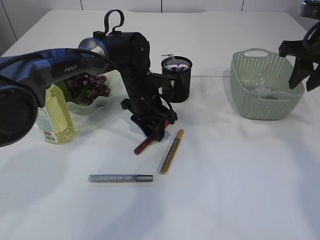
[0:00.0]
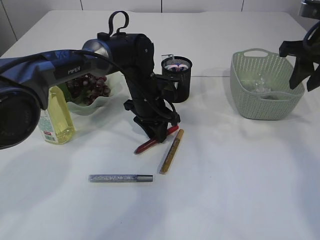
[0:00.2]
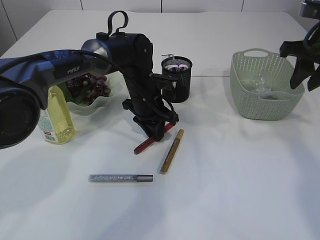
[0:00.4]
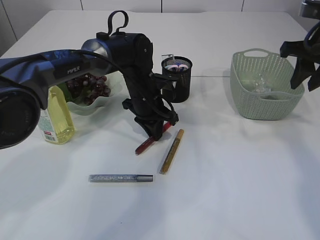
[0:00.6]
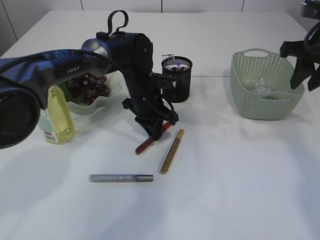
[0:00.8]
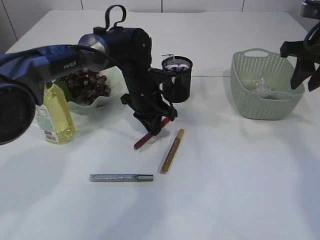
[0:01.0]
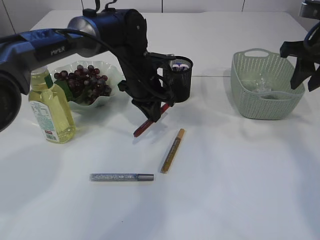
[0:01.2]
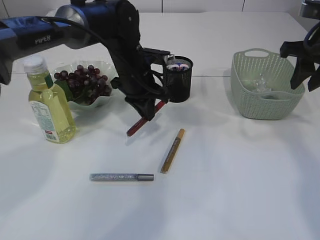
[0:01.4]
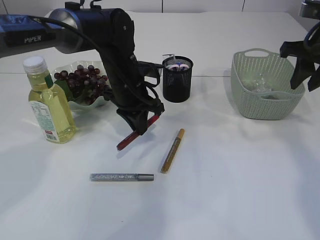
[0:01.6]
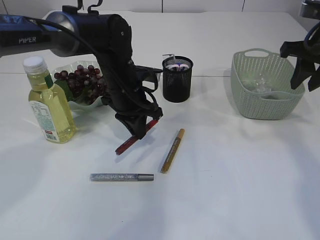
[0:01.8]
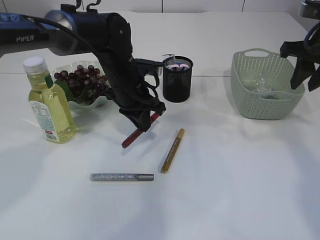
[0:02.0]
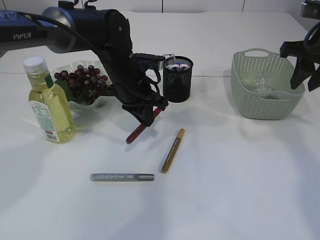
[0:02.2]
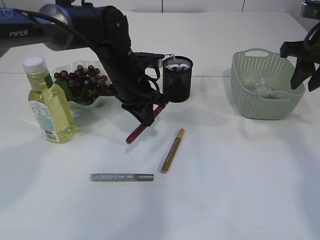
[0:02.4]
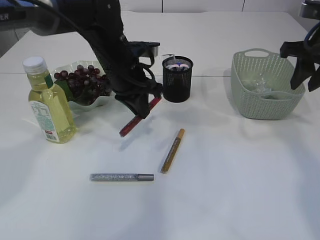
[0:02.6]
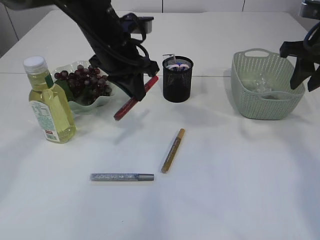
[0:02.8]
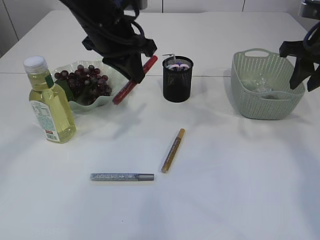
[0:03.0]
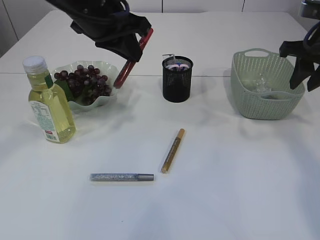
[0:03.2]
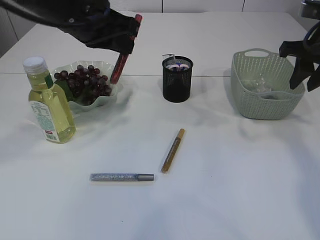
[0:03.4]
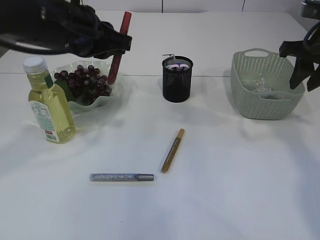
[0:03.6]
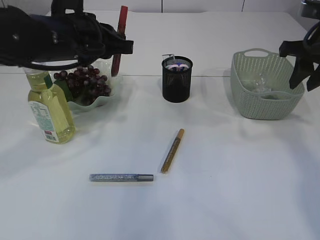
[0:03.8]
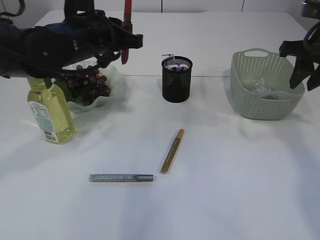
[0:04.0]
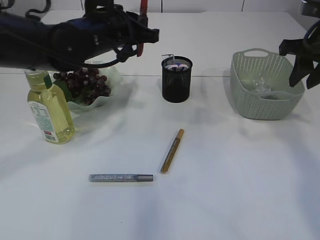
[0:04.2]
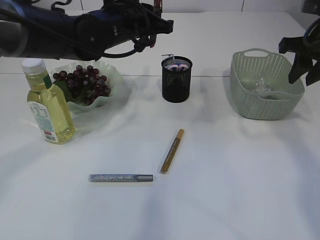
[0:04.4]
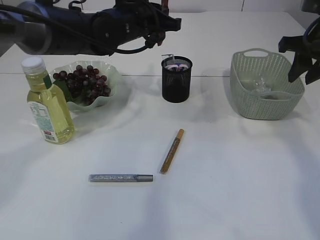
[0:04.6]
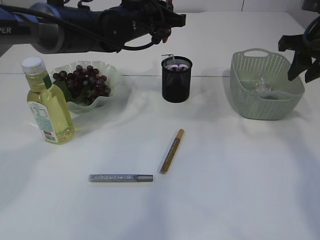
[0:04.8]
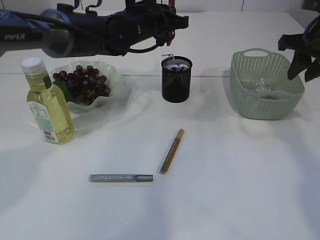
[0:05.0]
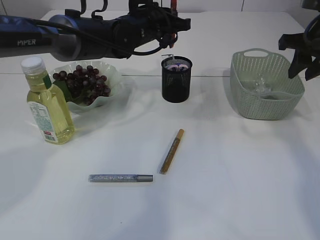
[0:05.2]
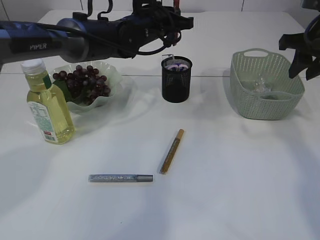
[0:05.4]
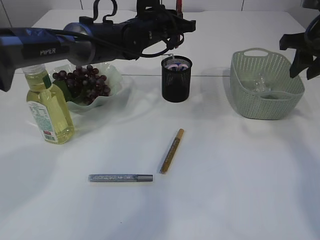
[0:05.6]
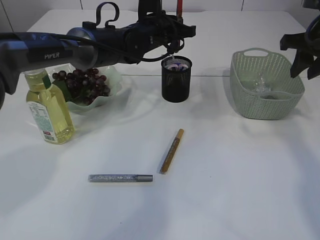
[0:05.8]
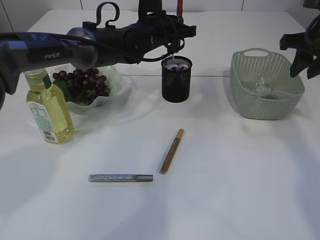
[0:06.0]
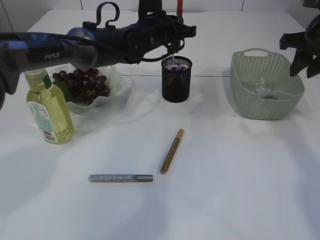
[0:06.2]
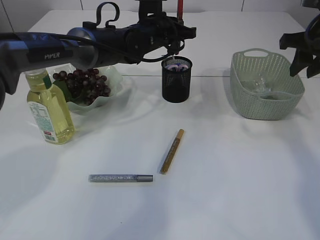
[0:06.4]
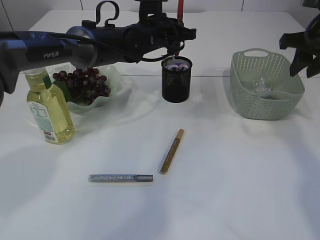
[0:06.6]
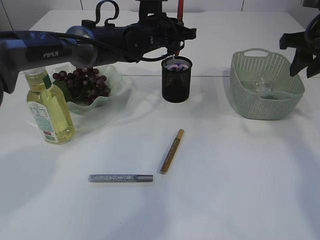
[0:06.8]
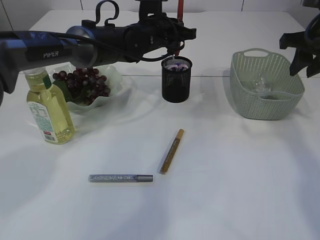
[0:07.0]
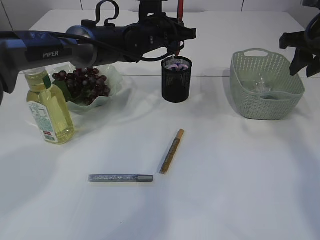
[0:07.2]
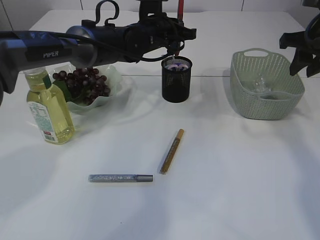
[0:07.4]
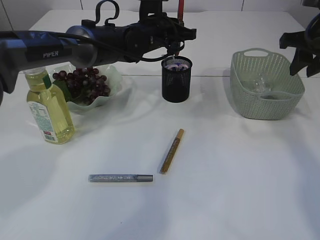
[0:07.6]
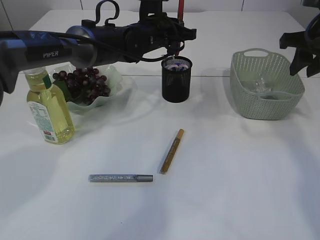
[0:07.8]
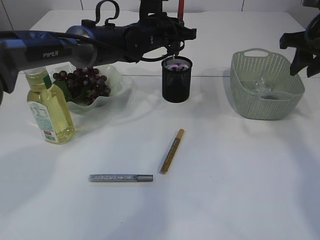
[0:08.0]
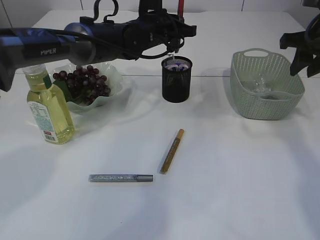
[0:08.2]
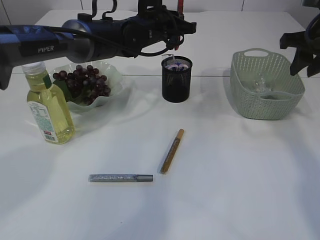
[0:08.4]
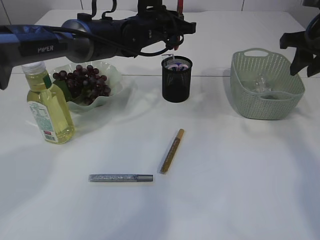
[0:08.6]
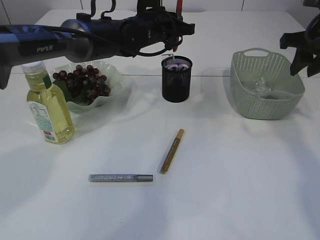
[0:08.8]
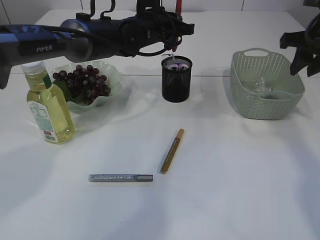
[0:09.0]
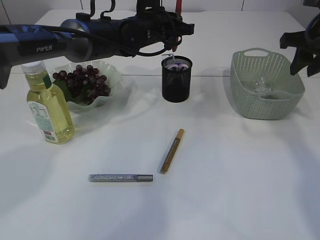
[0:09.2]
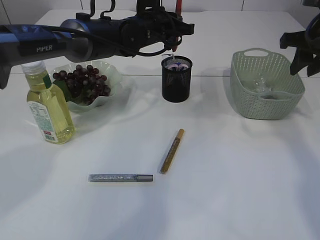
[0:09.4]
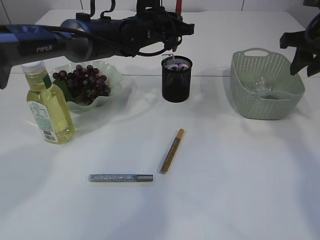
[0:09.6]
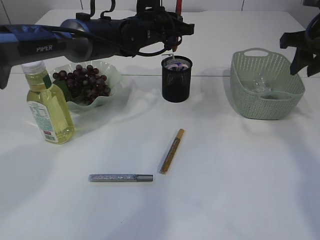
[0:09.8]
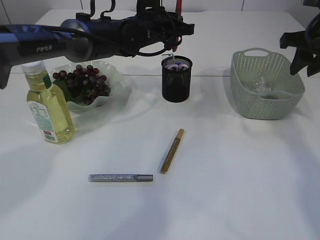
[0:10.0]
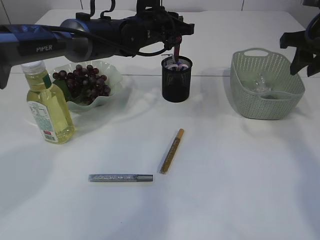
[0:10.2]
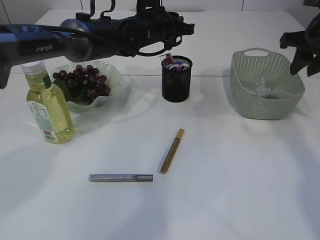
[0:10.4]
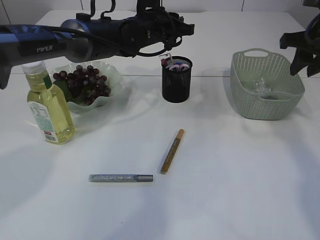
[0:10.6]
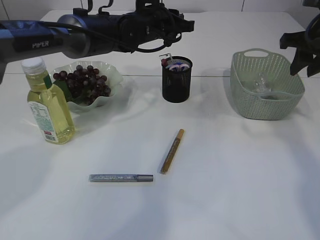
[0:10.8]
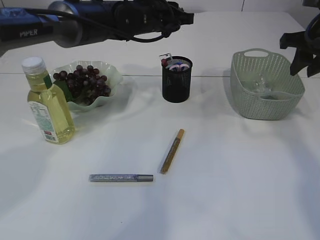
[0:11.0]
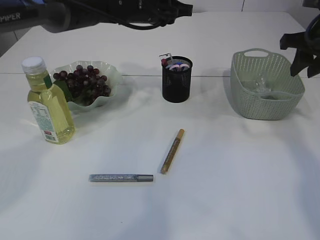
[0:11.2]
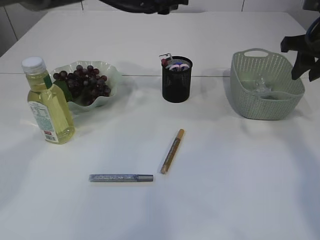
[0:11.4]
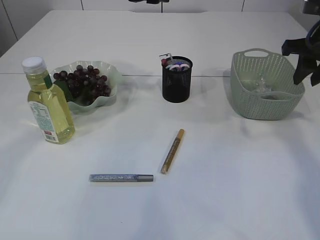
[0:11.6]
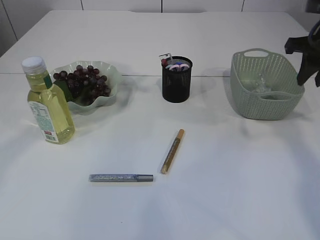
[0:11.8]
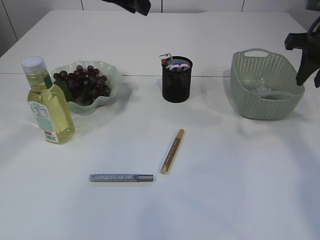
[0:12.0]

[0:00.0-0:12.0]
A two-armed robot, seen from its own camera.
Step, 0:01.8 to 0:11.0: place the red glue into the pen holder.
0:00.0 to 0:01.6: The left gripper changes place by some 5 cm, and closes up.
0:01.6 to 0:03.0: The left gripper is displaced upward by approximately 10 cm.
0:04.4 to 0:06.0: The left gripper moves forward, about 5 cm.
0:06.0 to 0:10.4: Neither gripper changes place.
0:10.4 to 0:12.0: The left gripper is displaced upward and backward by approximately 15 cm.

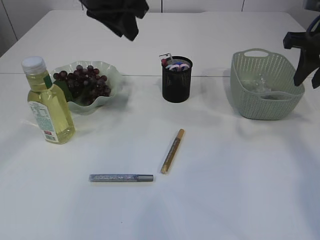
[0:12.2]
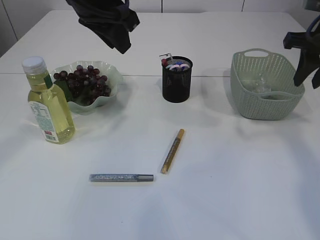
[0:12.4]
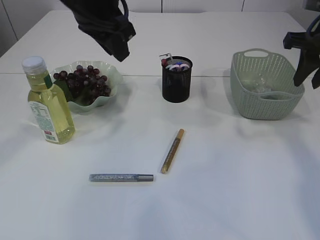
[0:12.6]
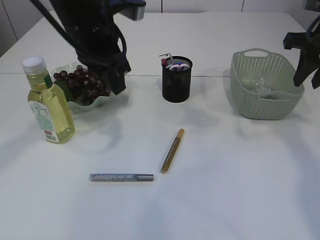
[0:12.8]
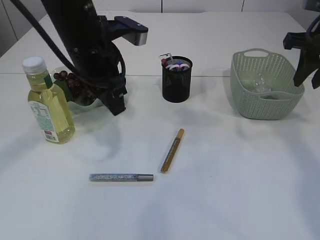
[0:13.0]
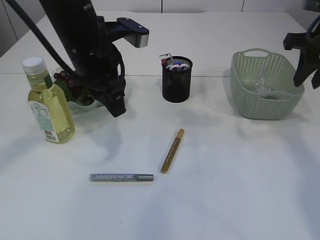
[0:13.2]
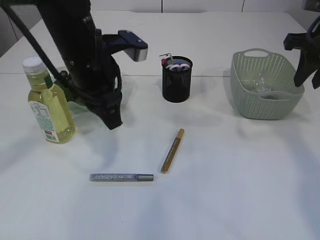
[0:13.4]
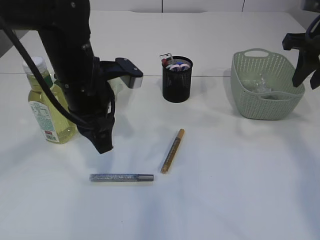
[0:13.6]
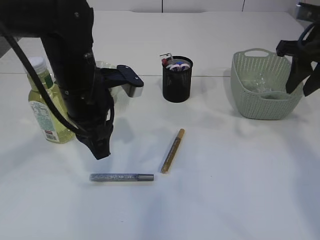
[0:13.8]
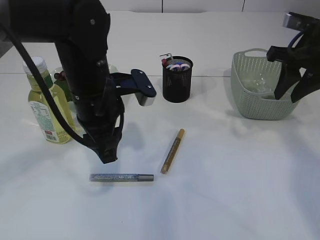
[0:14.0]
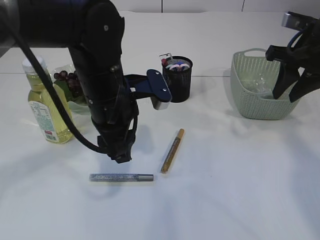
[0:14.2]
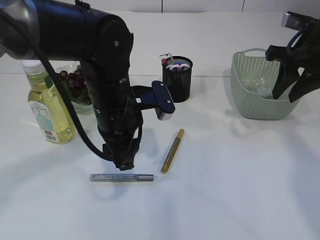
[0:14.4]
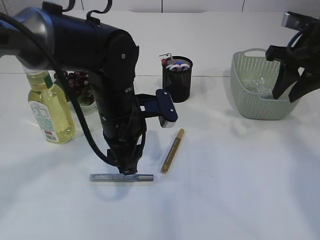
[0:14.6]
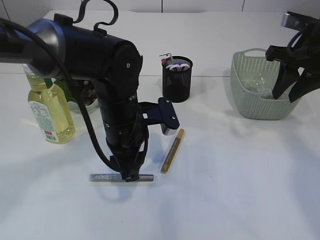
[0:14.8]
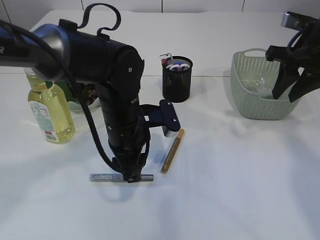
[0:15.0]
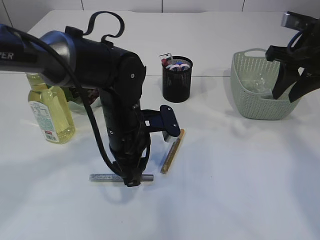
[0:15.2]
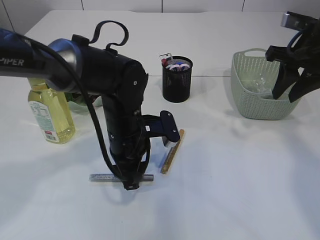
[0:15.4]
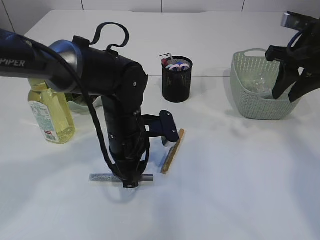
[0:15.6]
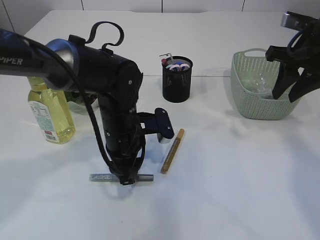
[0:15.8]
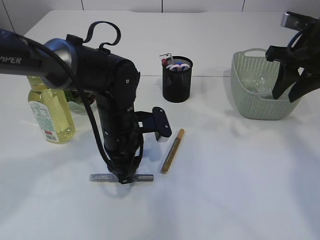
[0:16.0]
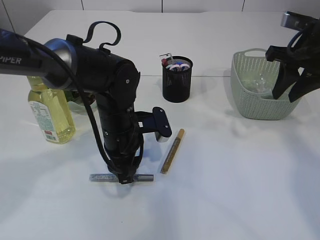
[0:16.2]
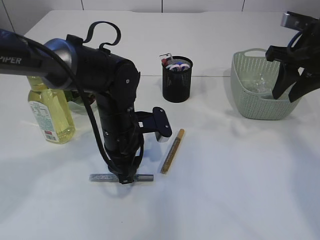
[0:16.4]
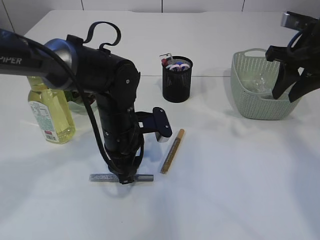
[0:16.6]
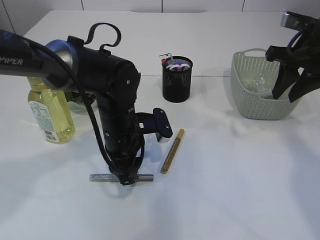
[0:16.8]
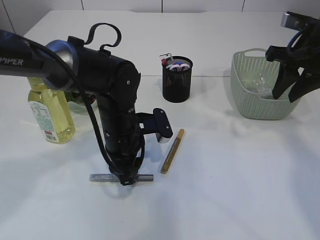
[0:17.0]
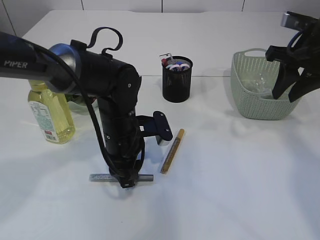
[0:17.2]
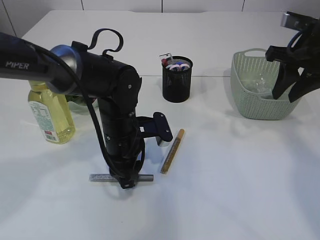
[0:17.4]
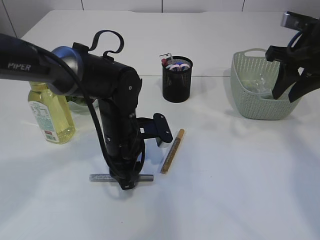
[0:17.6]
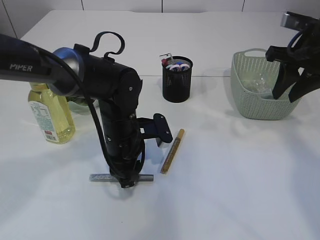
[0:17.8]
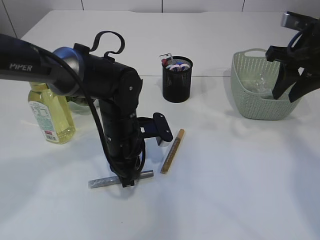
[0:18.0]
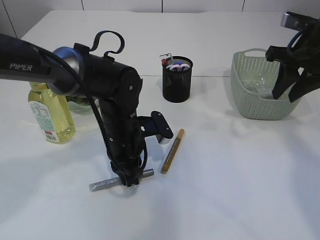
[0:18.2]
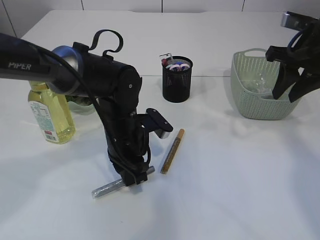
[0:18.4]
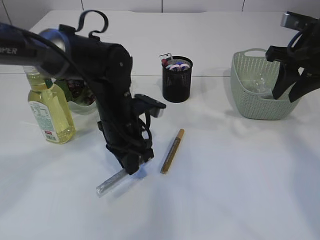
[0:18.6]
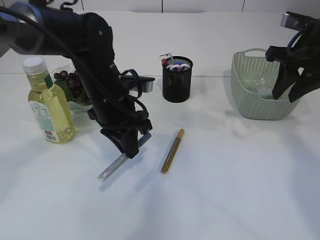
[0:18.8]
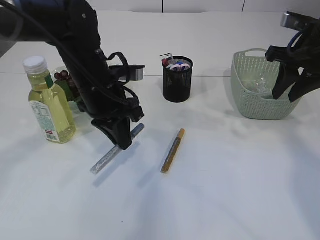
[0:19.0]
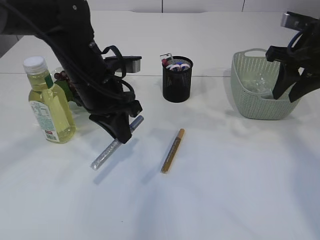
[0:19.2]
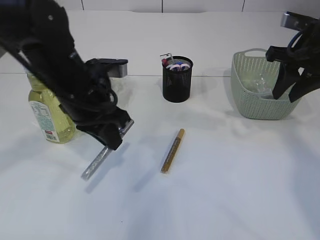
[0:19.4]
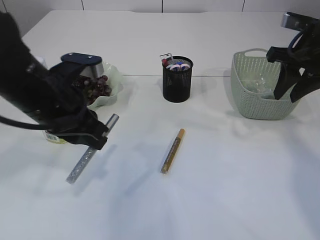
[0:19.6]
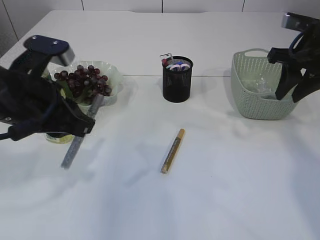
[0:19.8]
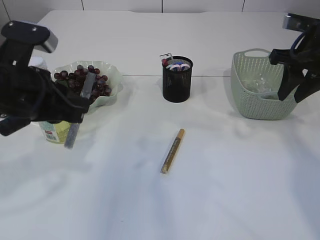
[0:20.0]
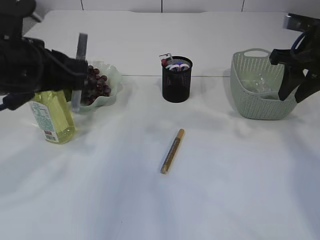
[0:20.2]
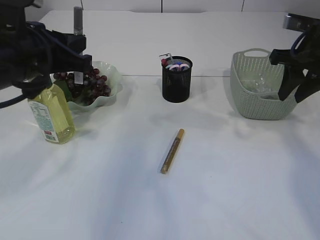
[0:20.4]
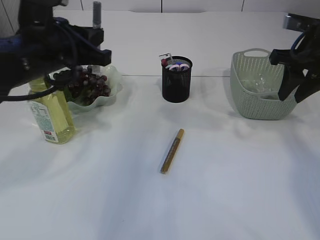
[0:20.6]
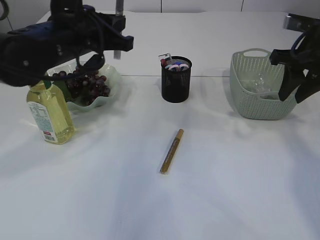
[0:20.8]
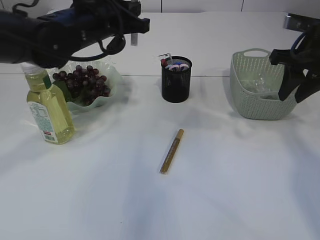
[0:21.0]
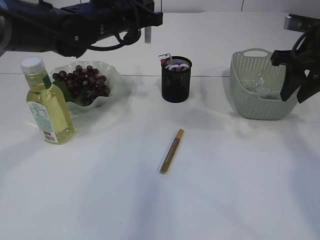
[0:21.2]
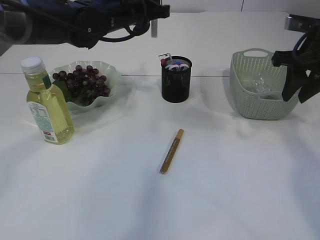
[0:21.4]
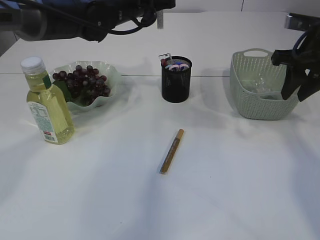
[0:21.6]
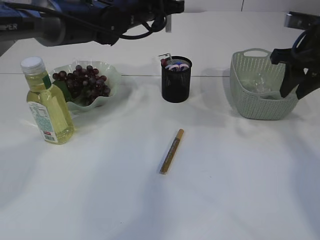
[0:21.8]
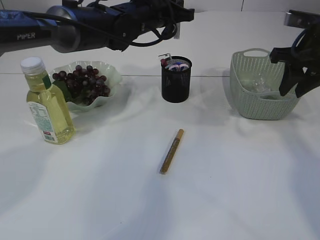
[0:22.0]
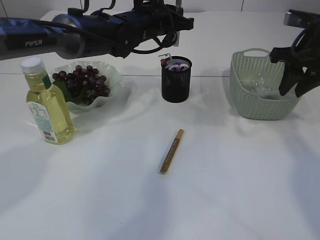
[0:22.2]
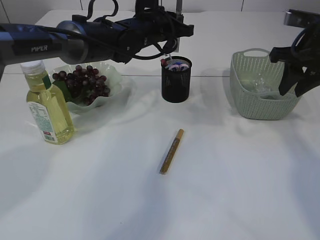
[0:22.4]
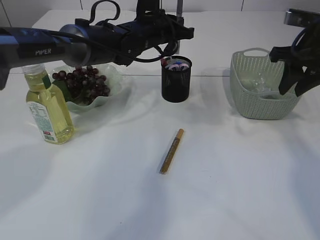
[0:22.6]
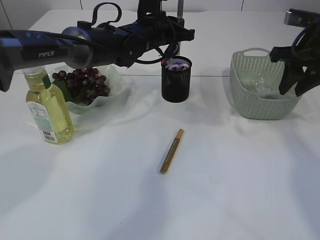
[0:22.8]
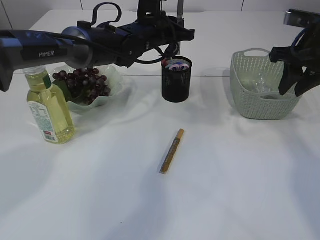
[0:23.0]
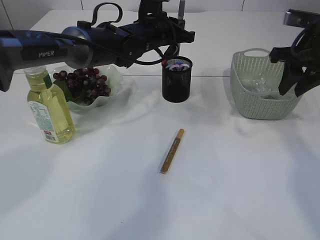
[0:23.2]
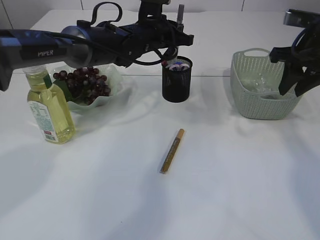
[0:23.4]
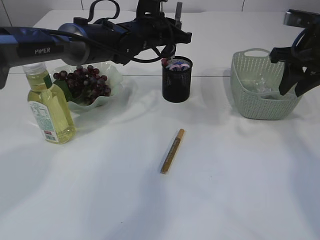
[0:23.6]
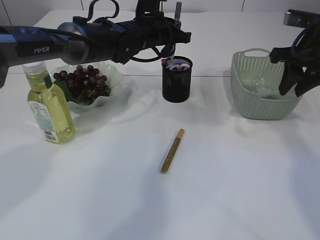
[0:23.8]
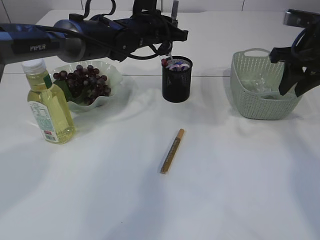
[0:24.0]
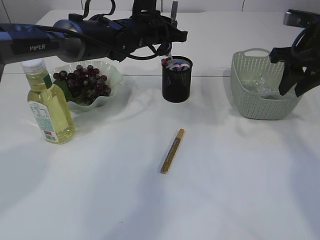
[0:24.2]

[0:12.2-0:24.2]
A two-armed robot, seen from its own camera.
Step, 0:12.2 to 0:19.4: pick up the silver glue.
0:12.2 to 0:13.8: The left gripper goes roughly 15 cm downward and backward.
0:13.8 to 0:15.2: The left gripper is displaced downward and to the right by roughly 10 cm.
0:15.2 to 0:16.6: The grippers move only a little.
0:16.6 to 0:18.2: The left gripper closes.
0:18.2 to 0:19.8: The left gripper moves upward, to the left and backward, roughly 20 cm.
0:19.8 to 0:21.2: The left gripper shifts about 20 cm forward and to the right.
0:21.2 to 0:22.6: The left gripper shifts roughly 10 cm forward, to the right and downward.
0:22.6 to 0:24.2: The grippers make only small movements.
